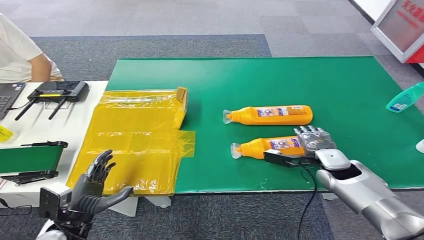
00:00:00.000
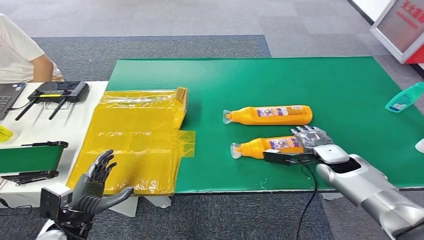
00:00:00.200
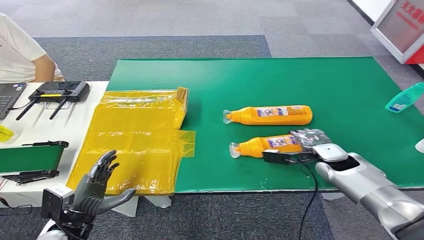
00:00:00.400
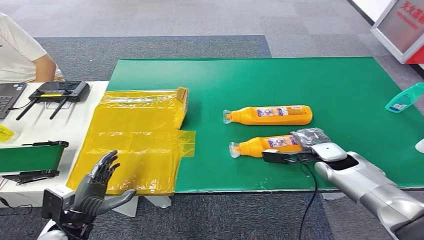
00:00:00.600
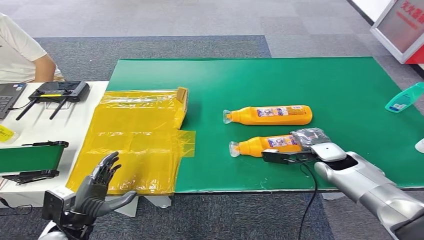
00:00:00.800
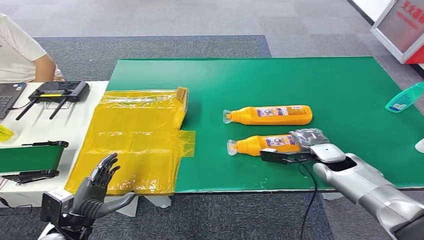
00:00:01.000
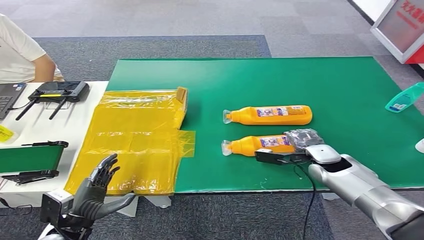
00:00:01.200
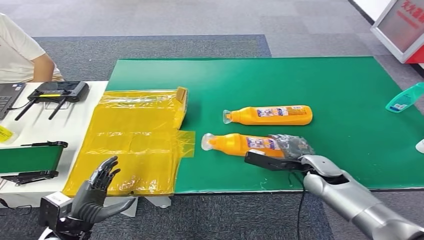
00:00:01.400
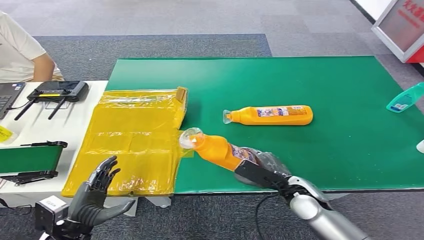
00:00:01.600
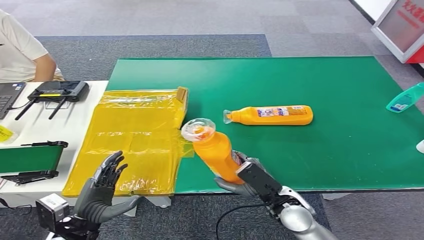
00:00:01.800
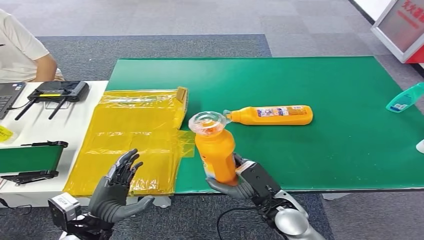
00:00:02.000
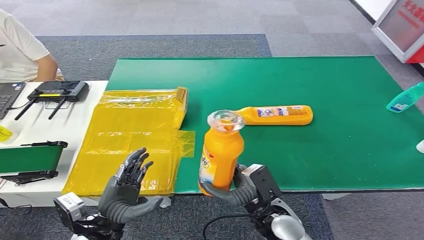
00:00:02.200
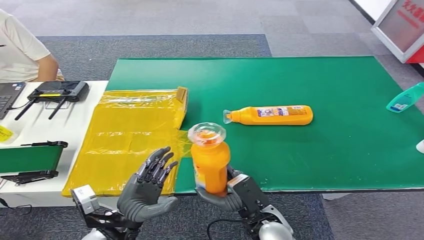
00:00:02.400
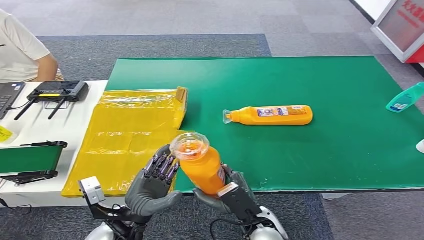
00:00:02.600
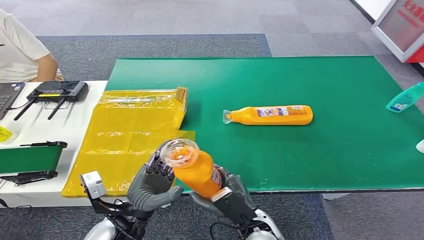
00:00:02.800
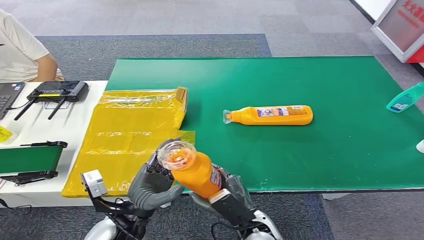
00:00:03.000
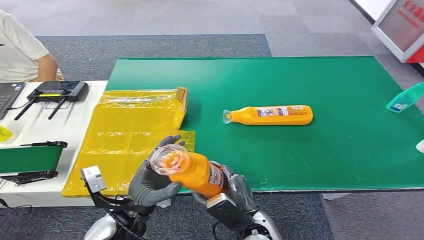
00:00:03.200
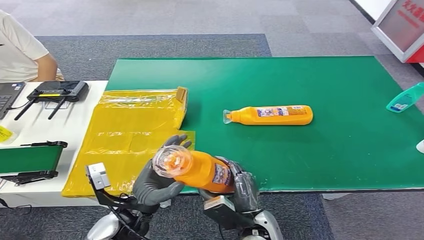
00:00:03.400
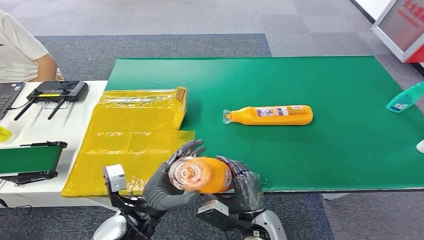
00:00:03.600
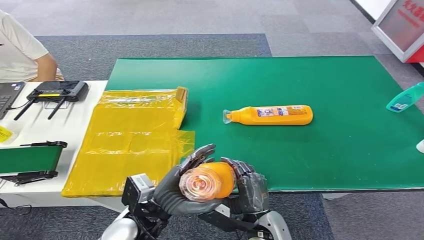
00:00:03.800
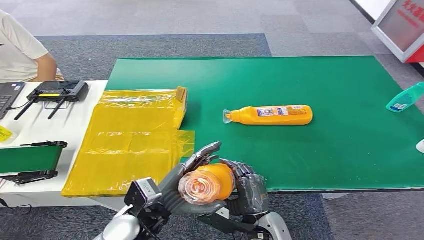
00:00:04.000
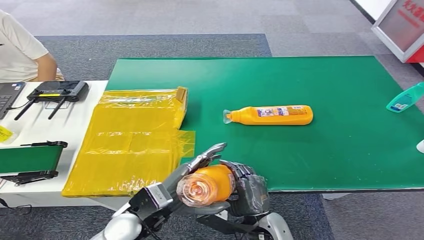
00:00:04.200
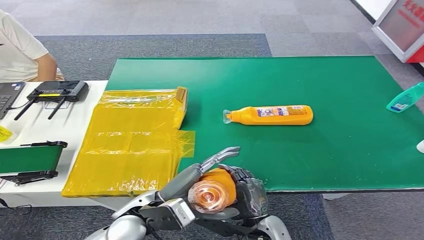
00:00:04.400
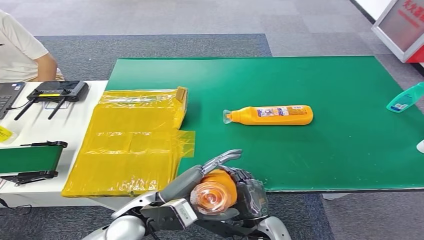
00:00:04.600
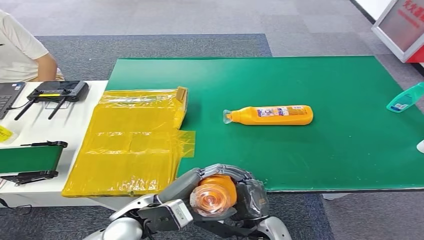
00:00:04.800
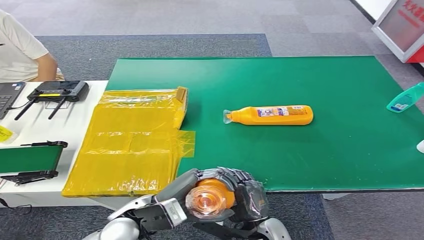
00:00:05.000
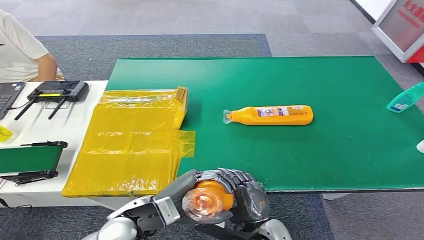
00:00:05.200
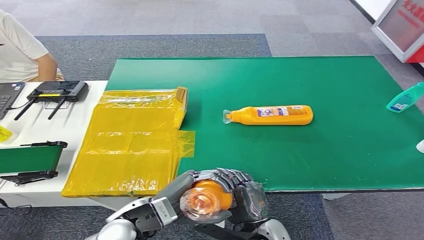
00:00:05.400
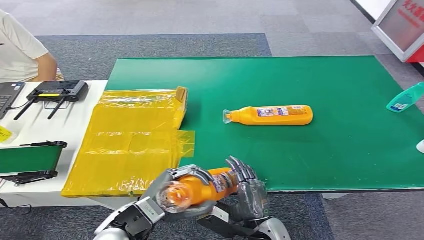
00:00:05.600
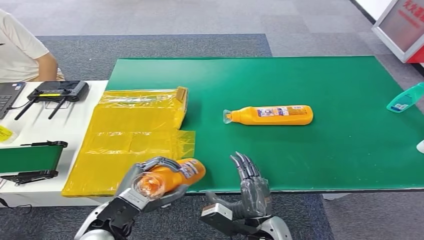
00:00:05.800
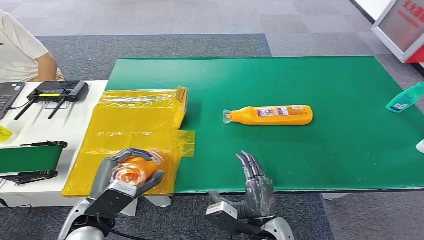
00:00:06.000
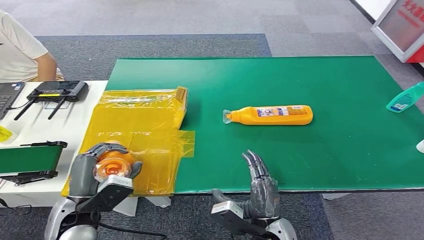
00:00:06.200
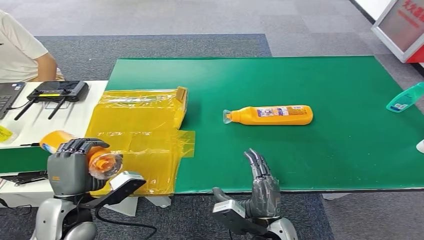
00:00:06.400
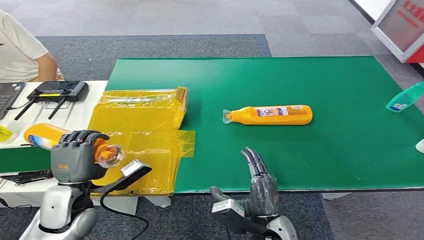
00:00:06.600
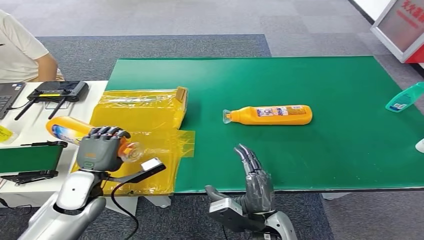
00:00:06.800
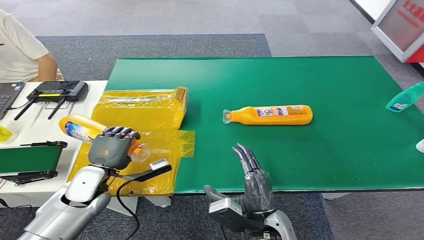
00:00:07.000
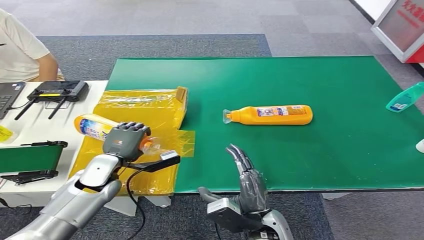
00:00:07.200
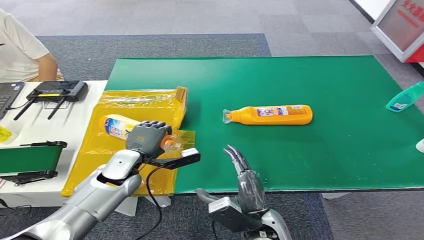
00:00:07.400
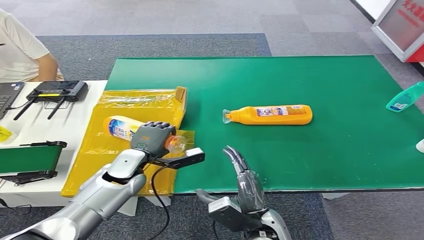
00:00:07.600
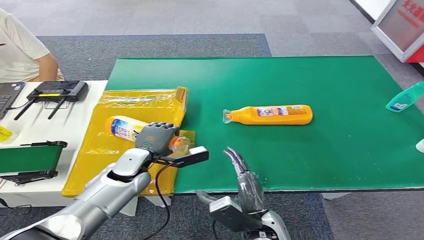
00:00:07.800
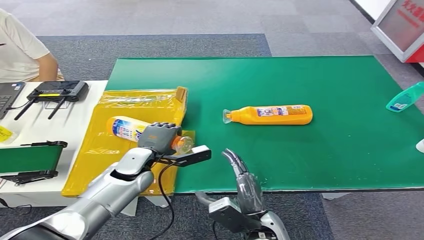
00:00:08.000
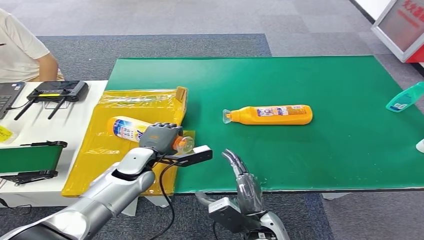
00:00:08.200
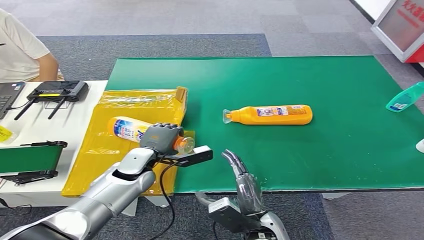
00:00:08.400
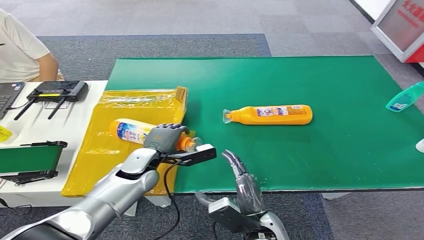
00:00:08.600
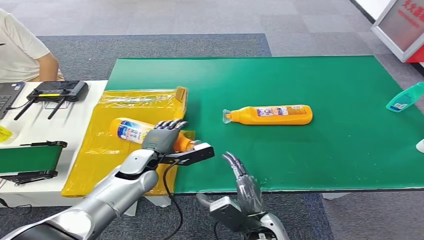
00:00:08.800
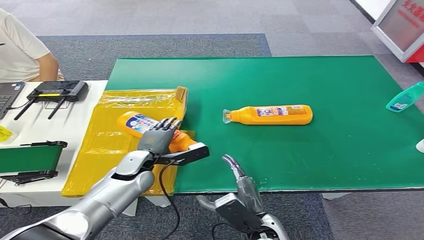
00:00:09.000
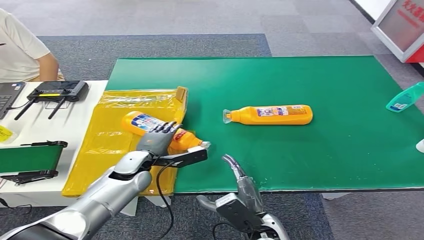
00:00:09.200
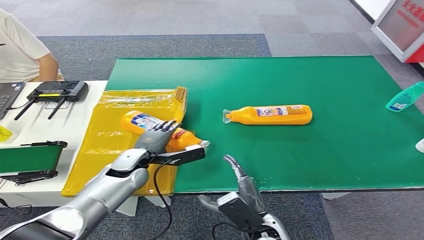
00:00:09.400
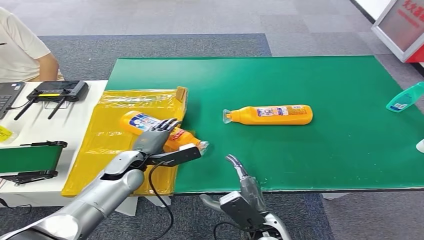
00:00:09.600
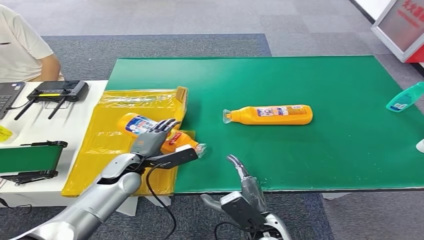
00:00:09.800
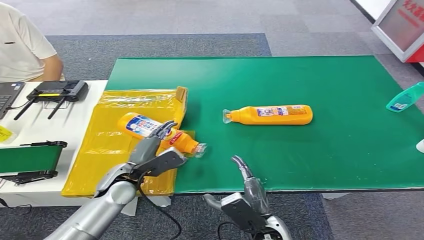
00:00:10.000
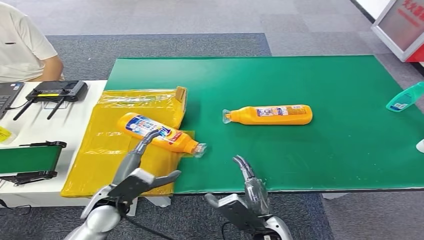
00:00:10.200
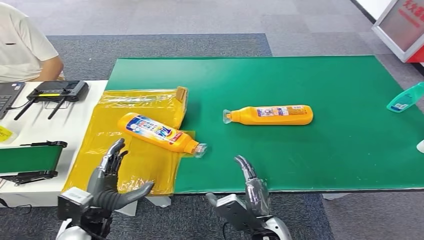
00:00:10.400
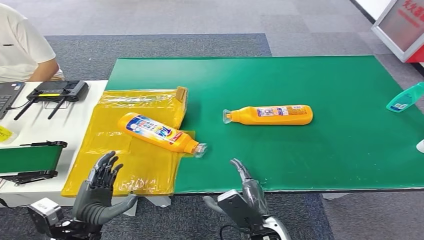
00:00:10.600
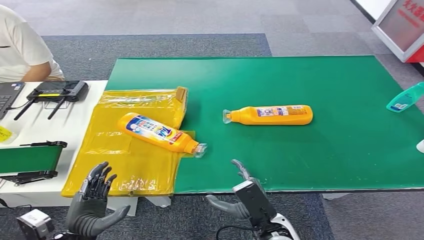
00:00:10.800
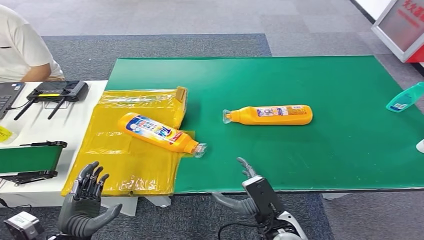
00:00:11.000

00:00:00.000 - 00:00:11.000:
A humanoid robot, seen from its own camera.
Step, 00:00:00.000 - 00:00:02.000: Pick up the bottle from the table.
Step, 00:00:02.200 - 00:00:11.000: Turn the bottle to the front side.
00:00:00.000 - 00:00:01.600: The right hand moves to the left and backward, some 10 cm.
00:00:01.600 - 00:00:03.200: The right hand goes some 15 cm to the left and backward, while the left hand shifts roughly 15 cm to the right.
00:00:04.800 - 00:00:06.200: The left hand heads to the left, covering some 10 cm.
00:00:06.200 - 00:00:07.800: The left hand is displaced forward and to the right by about 15 cm.
00:00:07.800 - 00:00:09.400: The hands move only a little.
00:00:09.400 - 00:00:11.000: The left hand heads backward, covering roughly 25 cm.
